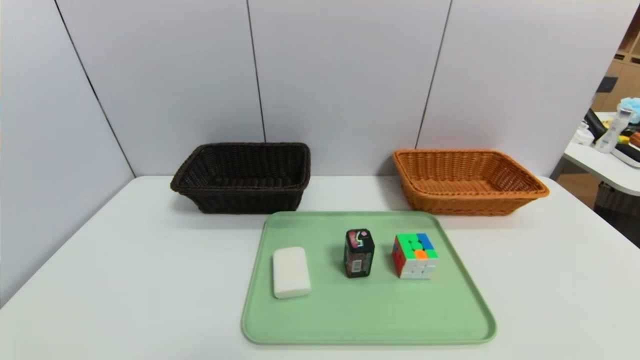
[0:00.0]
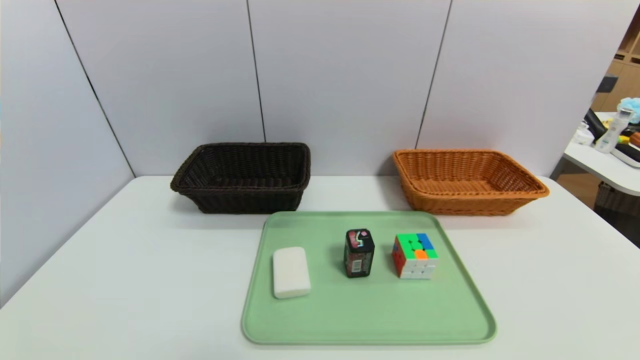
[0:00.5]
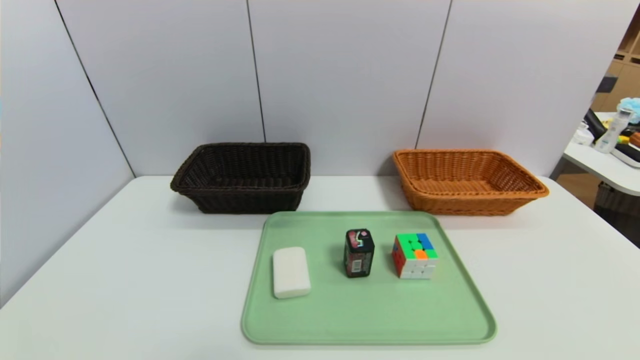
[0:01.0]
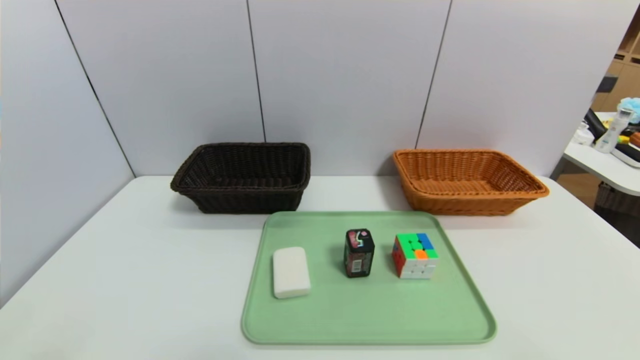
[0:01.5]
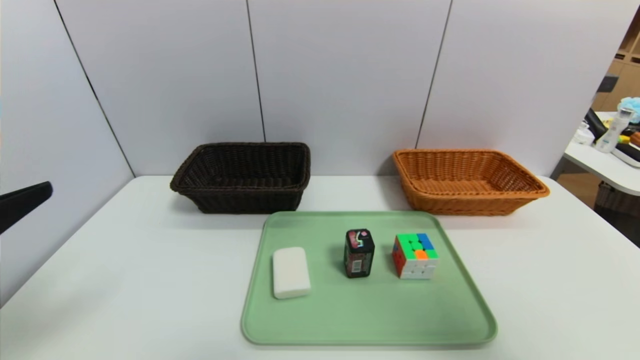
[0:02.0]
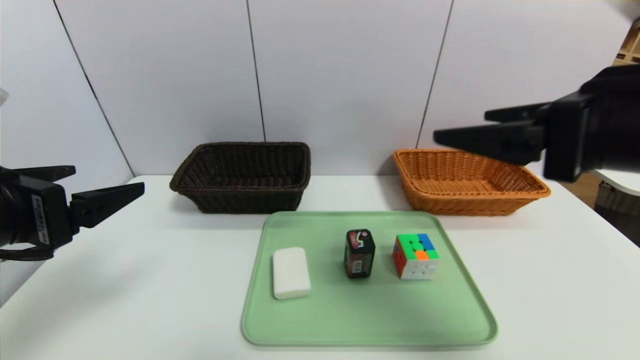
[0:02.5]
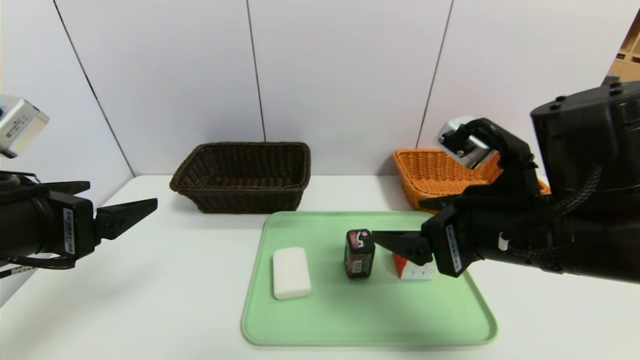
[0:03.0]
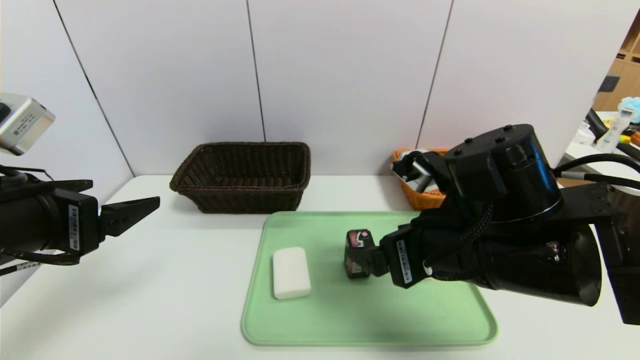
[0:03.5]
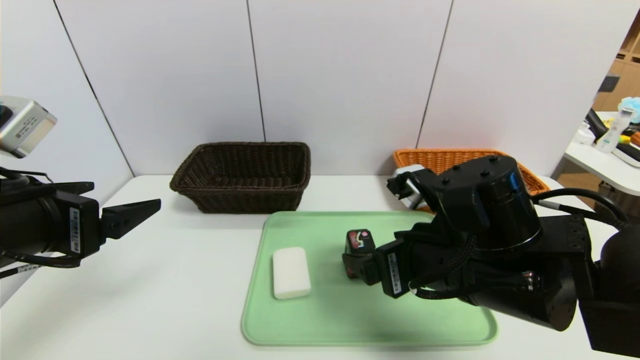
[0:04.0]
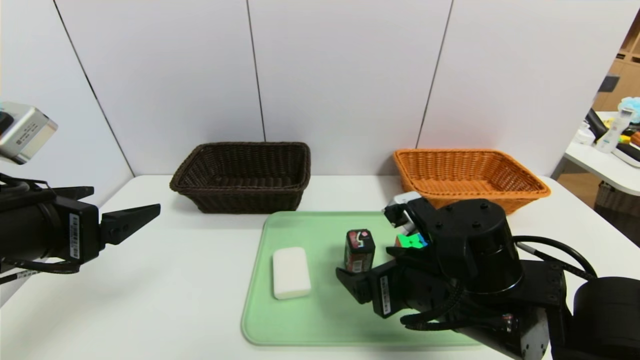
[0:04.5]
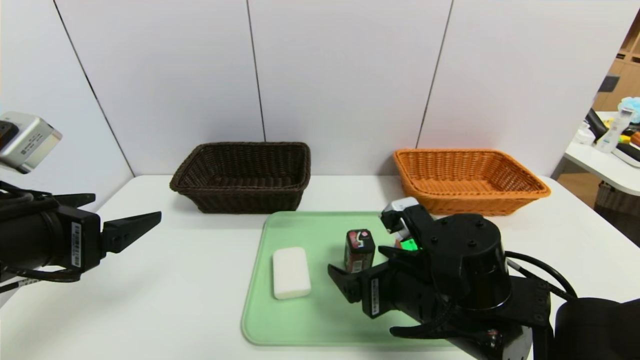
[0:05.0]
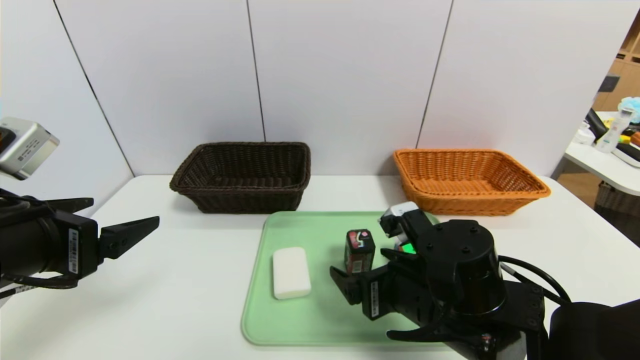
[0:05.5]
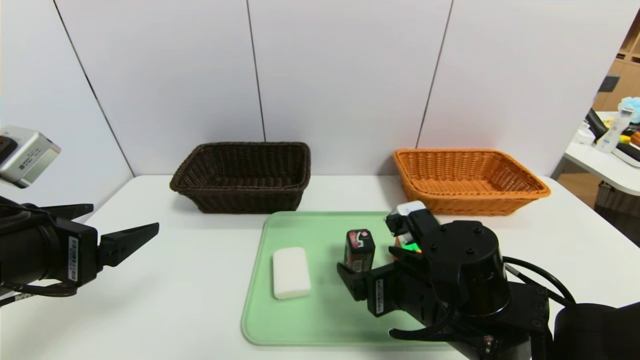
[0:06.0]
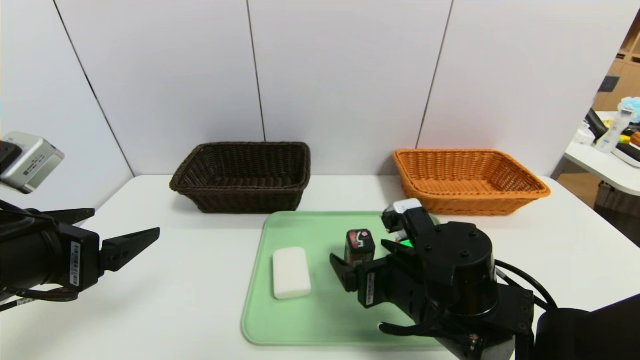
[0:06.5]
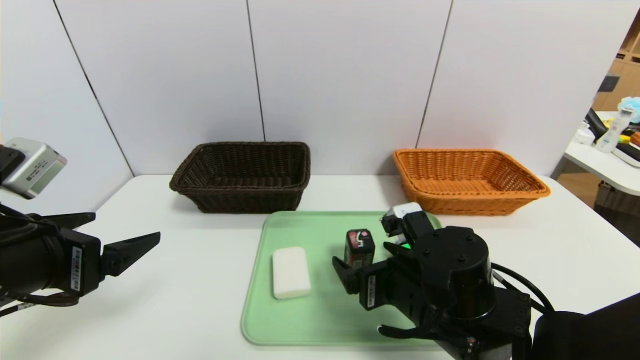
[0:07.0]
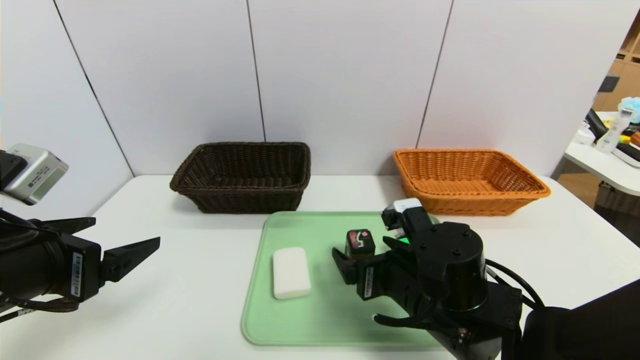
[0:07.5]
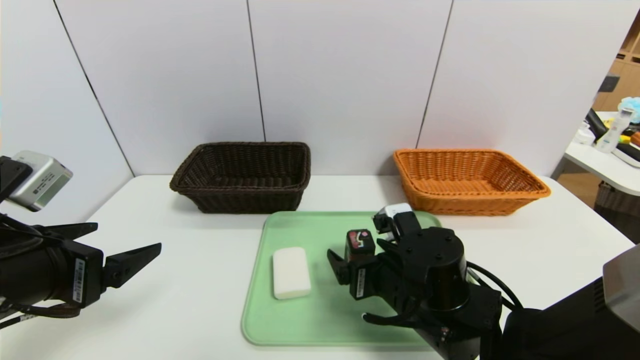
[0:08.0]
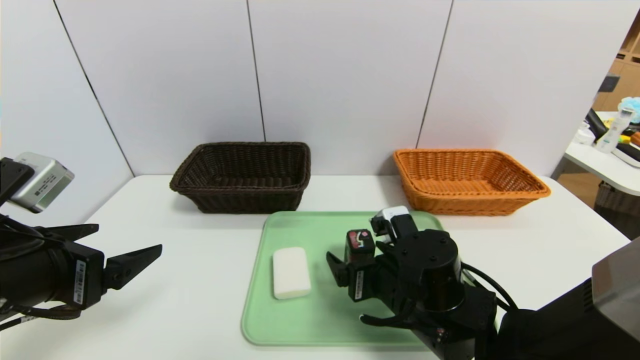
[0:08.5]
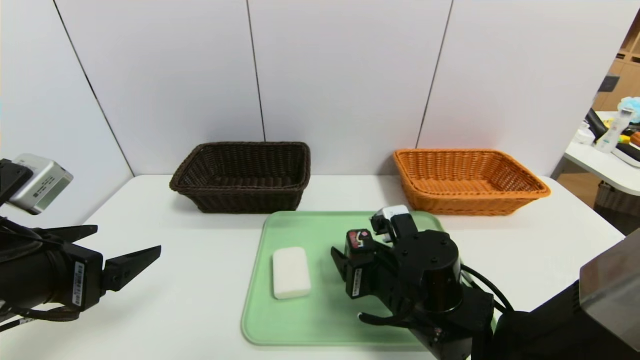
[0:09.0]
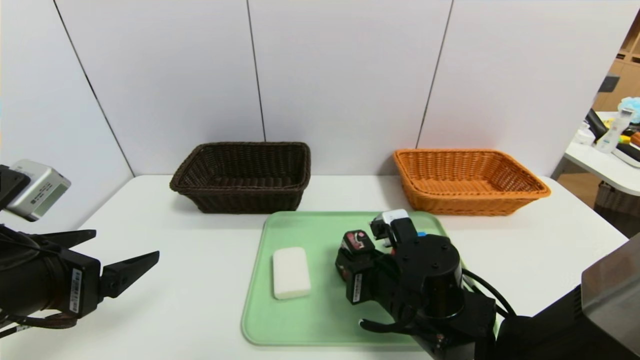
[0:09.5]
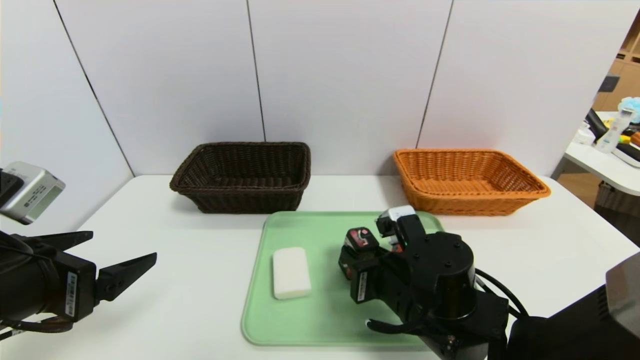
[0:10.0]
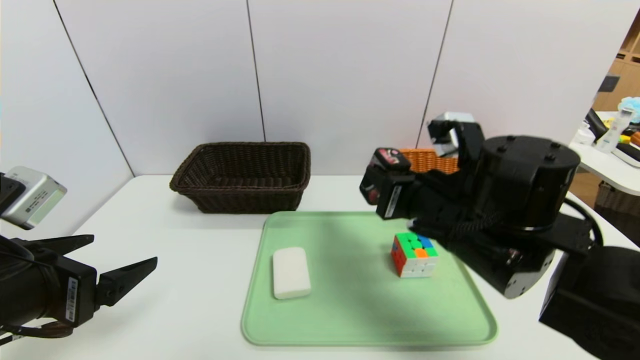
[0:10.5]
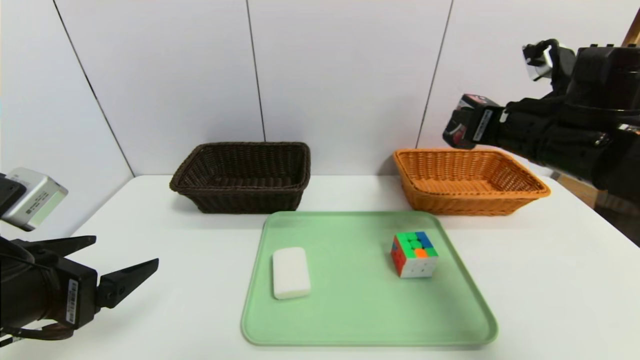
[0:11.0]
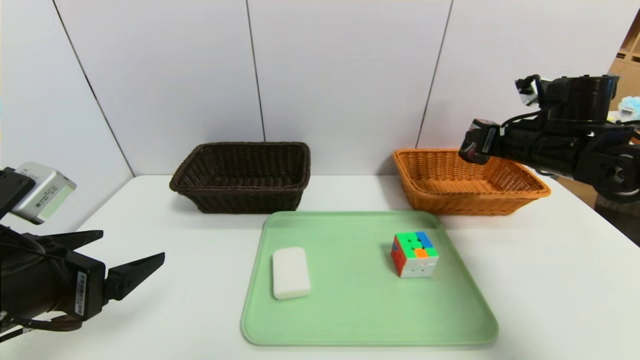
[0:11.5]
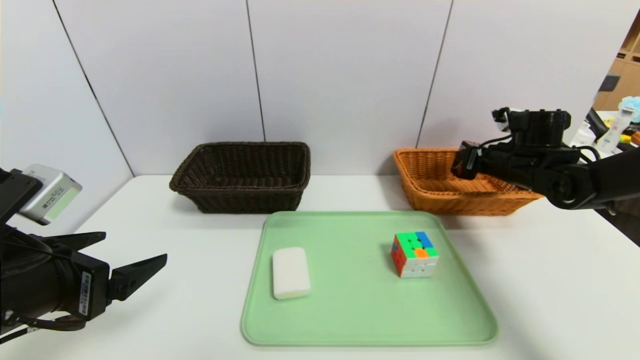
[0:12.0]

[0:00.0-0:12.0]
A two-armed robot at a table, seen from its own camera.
Task of the whole recording: place the food in the right basket with the right gripper, and place the non food items in the left basket with the left gripper.
0:00.0 to 0:02.0: The left gripper is displaced upward and forward by roughly 25 cm. Meanwhile the right gripper goes approximately 25 cm upward.
0:02.0 to 0:04.0: The left gripper moves forward, about 5 cm. The right gripper goes approximately 25 cm to the left, downward and forward.
0:04.0 to 0:06.0: The right gripper moves downward, roughly 5 cm.
0:06.0 to 0:08.0: The grippers stay close to where they were, moving slightly.
0:08.0 to 0:10.0: The right gripper closes its fingers.
0:10.0 to 0:12.0: The right gripper goes approximately 30 cm to the right and forward.

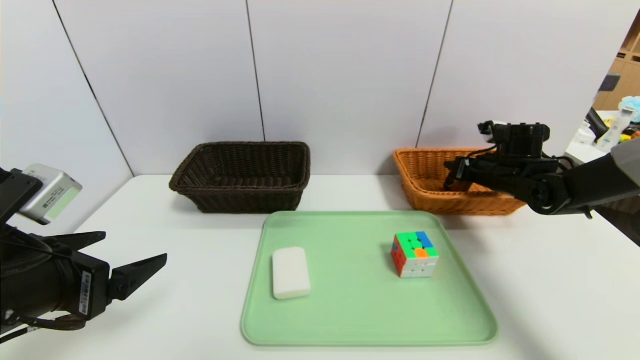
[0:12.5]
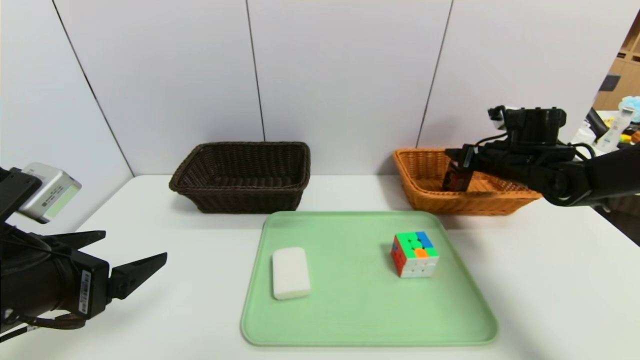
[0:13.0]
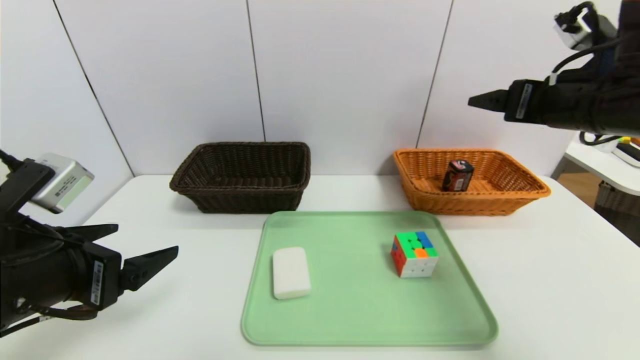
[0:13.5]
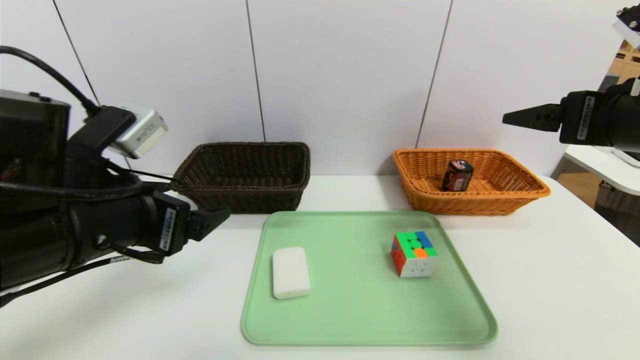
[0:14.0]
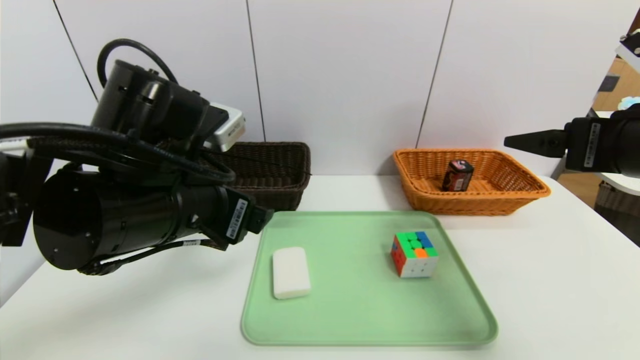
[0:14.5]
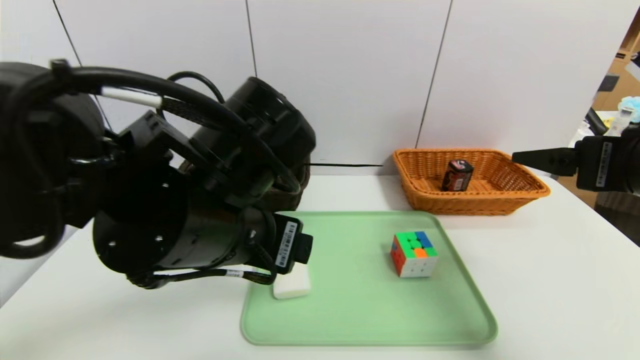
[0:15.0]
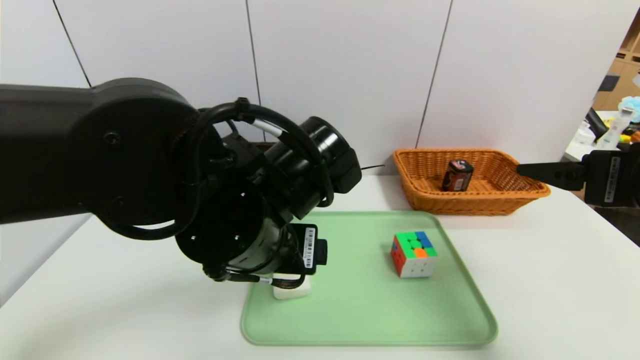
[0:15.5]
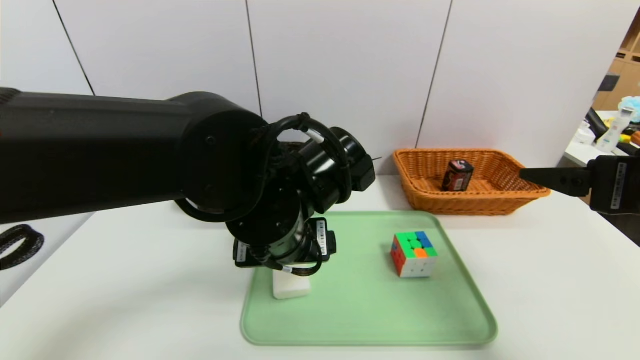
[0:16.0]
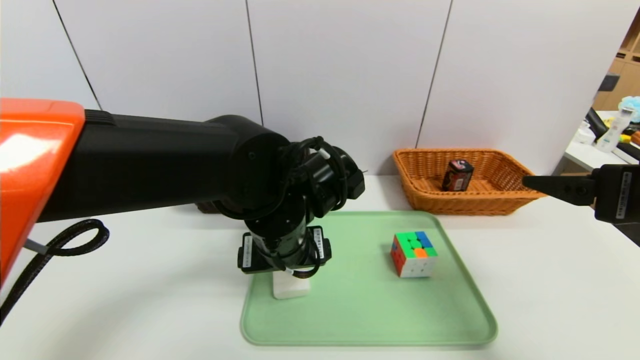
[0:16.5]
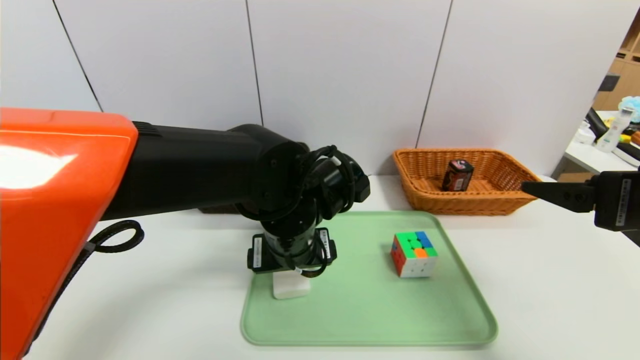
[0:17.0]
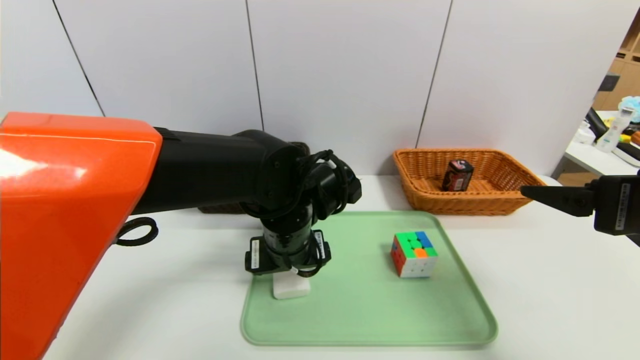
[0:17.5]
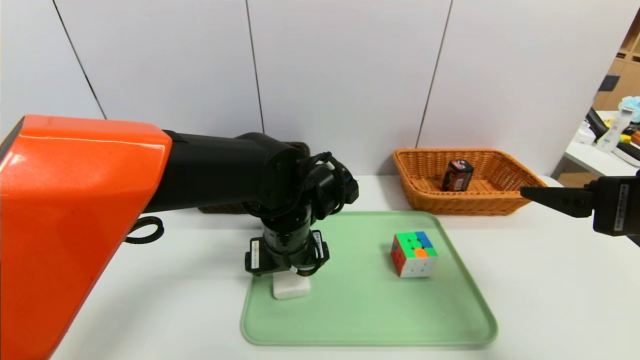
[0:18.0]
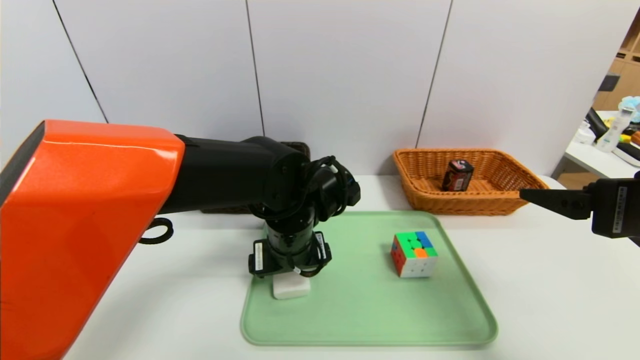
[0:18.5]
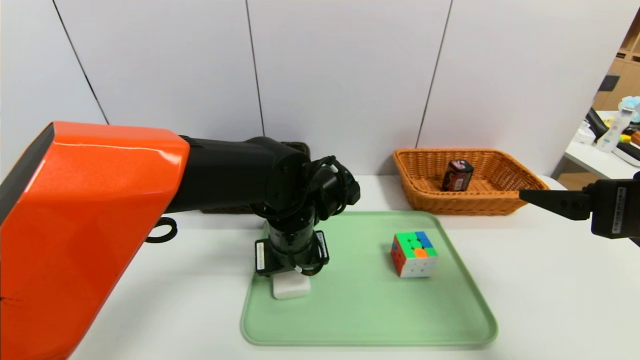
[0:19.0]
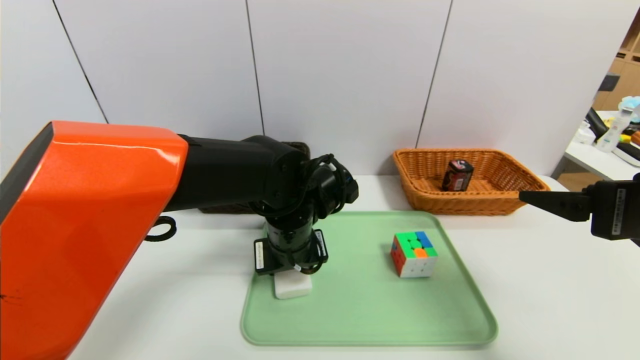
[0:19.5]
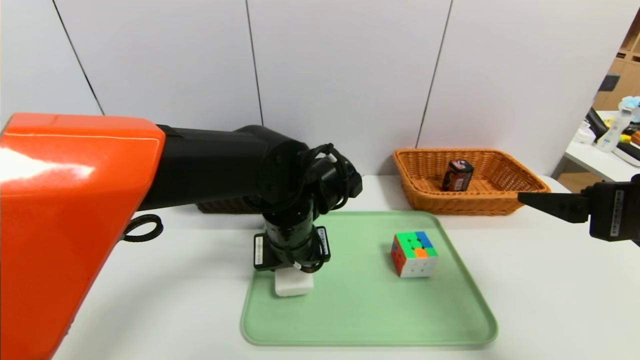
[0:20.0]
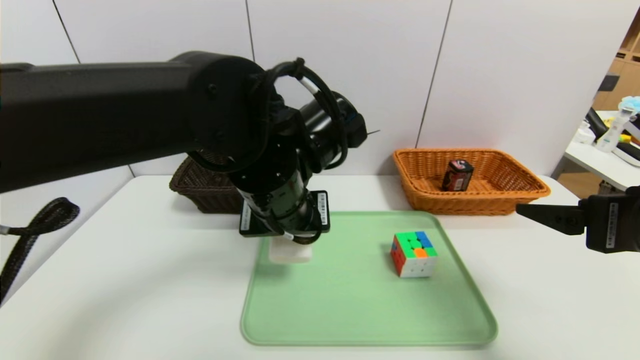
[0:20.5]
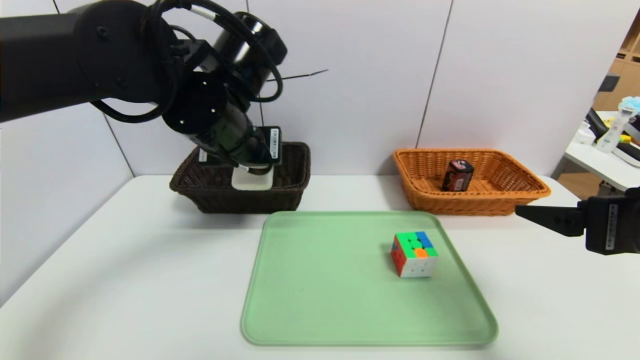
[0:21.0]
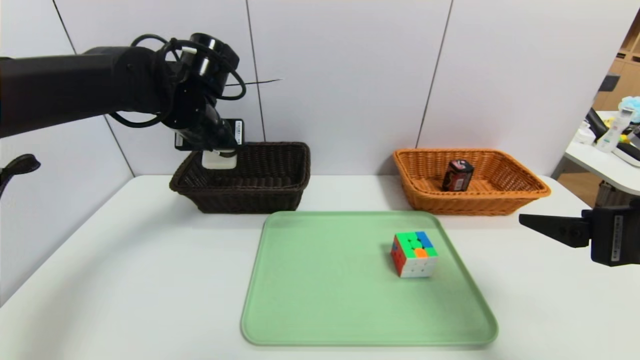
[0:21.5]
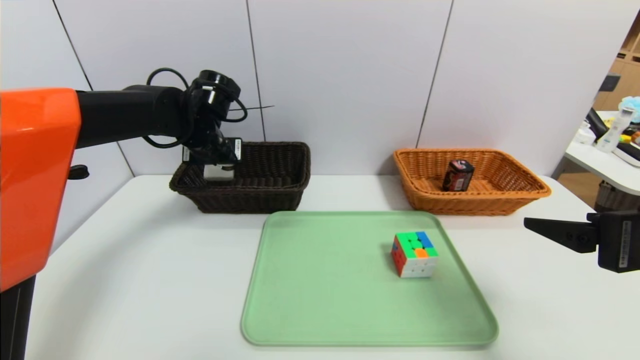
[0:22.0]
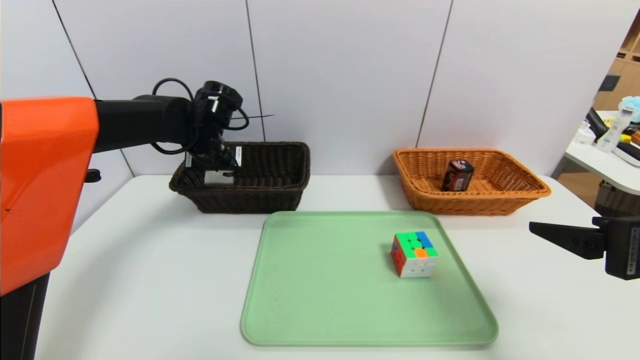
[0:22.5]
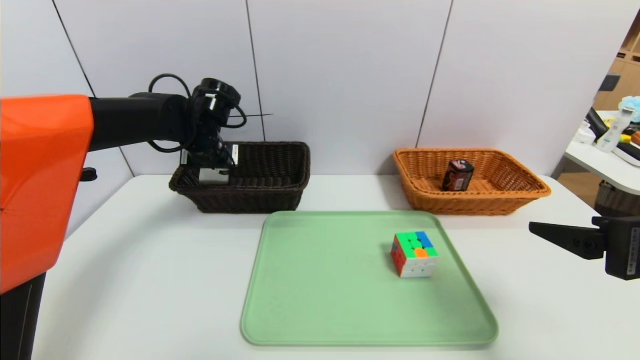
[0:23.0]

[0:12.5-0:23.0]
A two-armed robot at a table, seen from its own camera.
Task of the whole recording: place the food in the right basket with the right gripper, and place the non food items in the left basket with the left gripper.
0:12.5 to 0:14.5: The left gripper moves to the right and forward, roughly 15 cm. The right gripper goes roughly 30 cm backward and upward, and opens its fingers.
0:14.5 to 0:16.5: The left gripper is displaced to the right, downward and forward by roughly 15 cm.
0:16.5 to 0:19.0: The left gripper ends up about 5 cm from where it was, and closes.
0:19.0 to 0:21.0: The left gripper shifts roughly 15 cm upward and to the left, and closes up.
0:21.0 to 0:23.0: The left gripper goes approximately 20 cm forward, to the left and downward.
